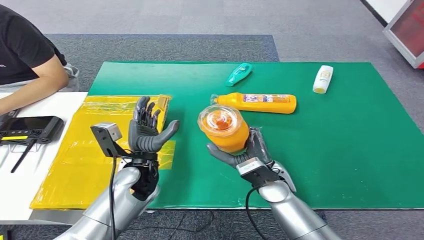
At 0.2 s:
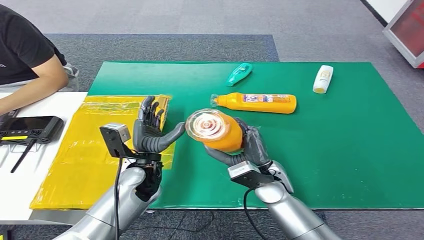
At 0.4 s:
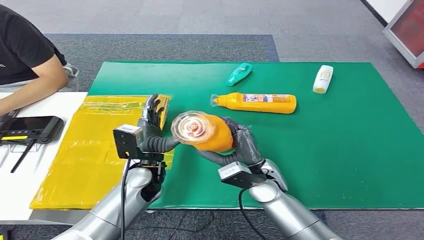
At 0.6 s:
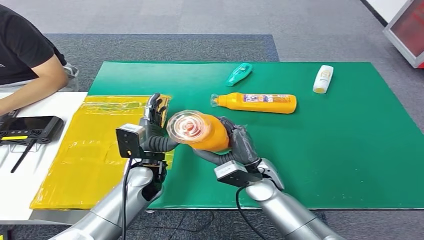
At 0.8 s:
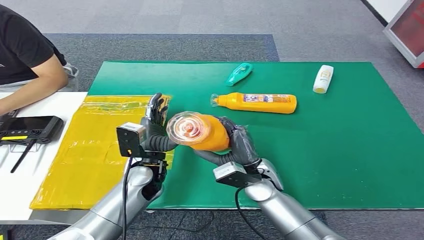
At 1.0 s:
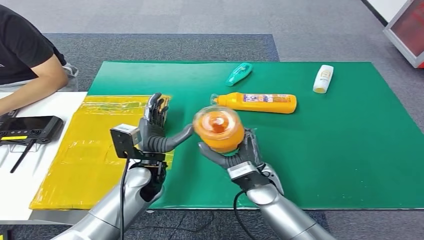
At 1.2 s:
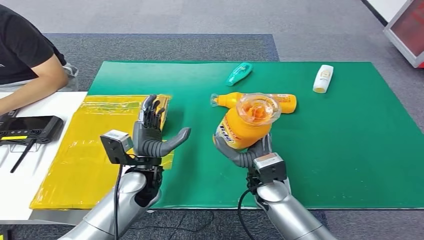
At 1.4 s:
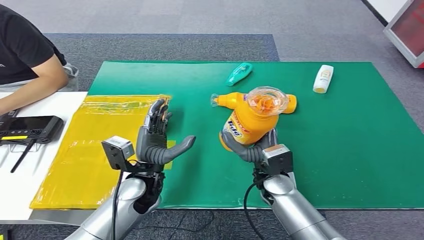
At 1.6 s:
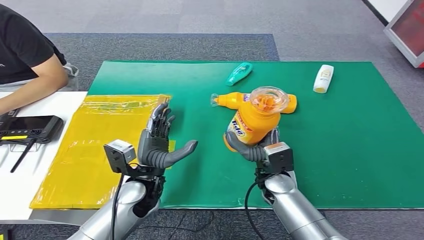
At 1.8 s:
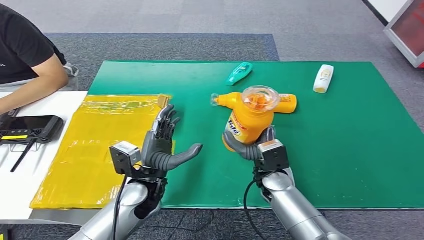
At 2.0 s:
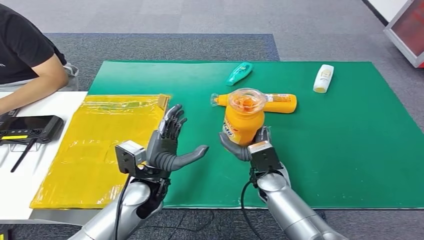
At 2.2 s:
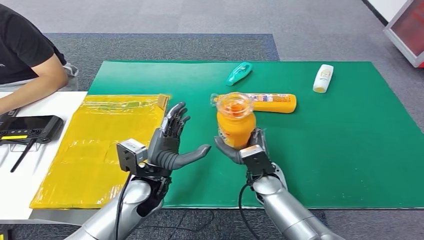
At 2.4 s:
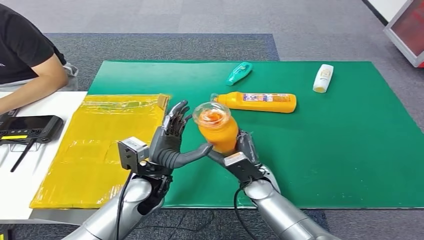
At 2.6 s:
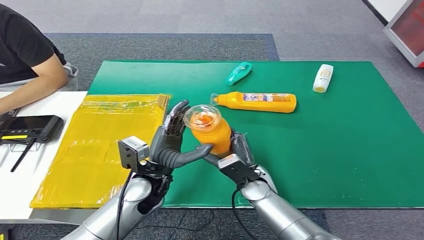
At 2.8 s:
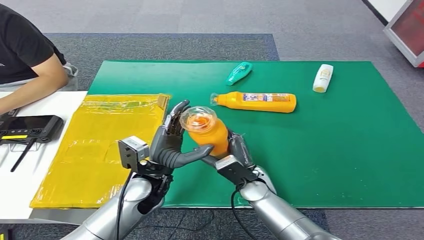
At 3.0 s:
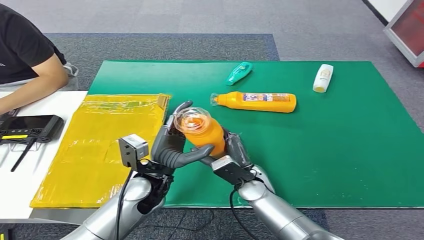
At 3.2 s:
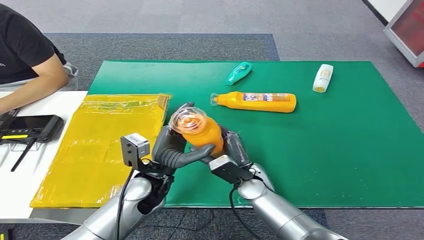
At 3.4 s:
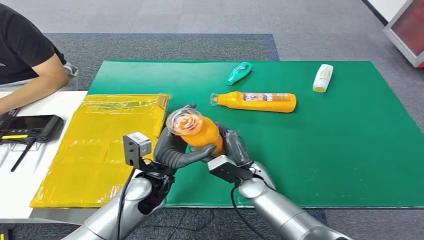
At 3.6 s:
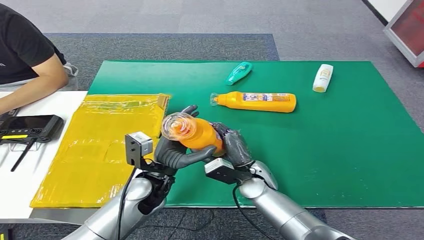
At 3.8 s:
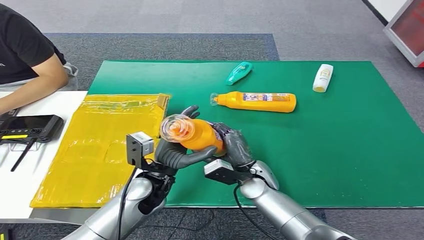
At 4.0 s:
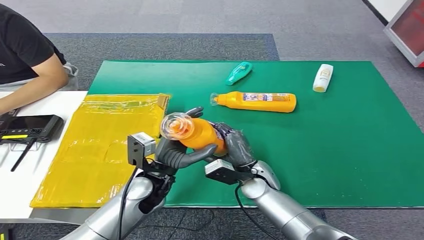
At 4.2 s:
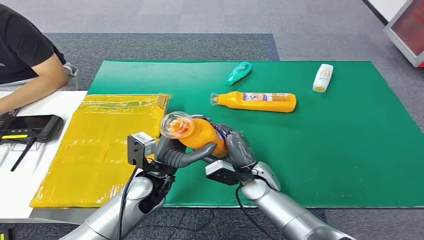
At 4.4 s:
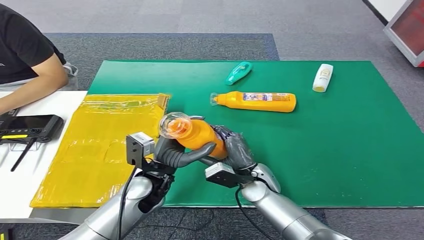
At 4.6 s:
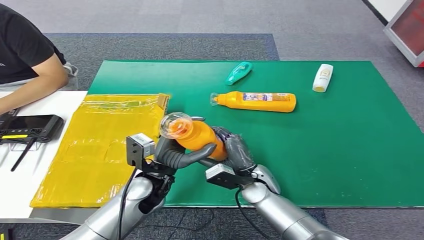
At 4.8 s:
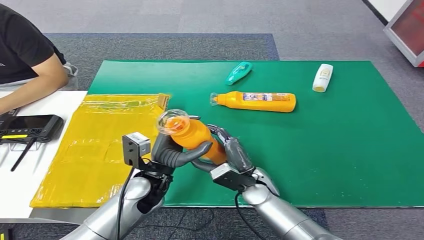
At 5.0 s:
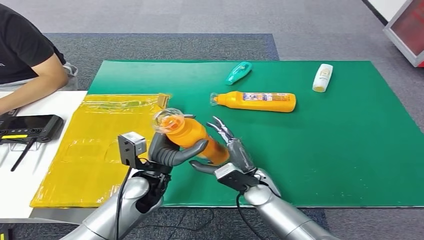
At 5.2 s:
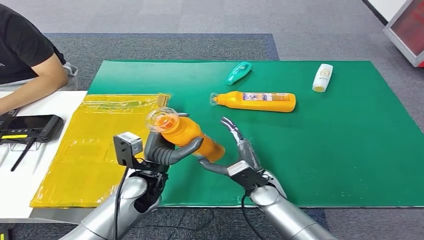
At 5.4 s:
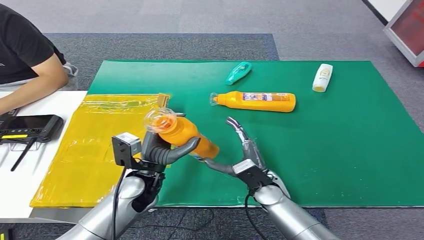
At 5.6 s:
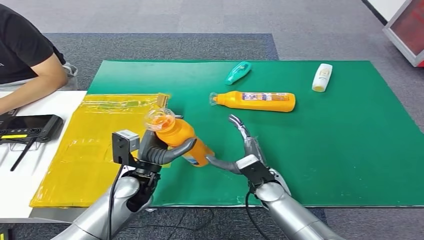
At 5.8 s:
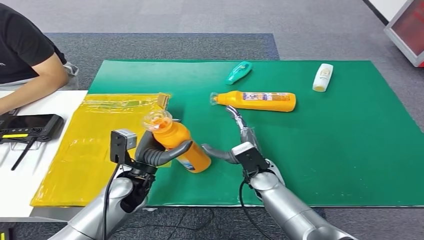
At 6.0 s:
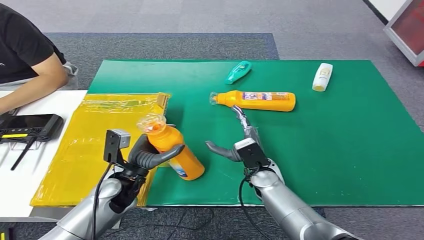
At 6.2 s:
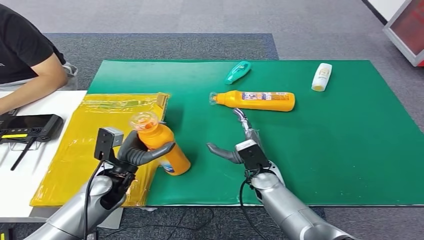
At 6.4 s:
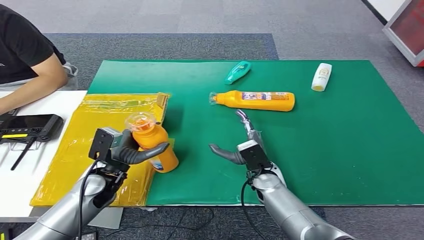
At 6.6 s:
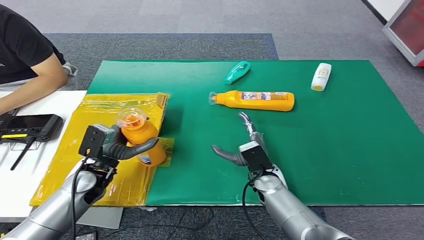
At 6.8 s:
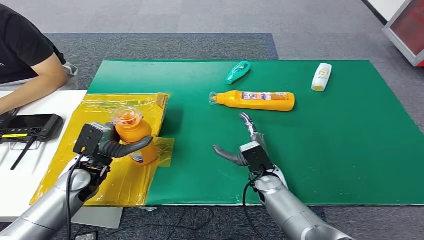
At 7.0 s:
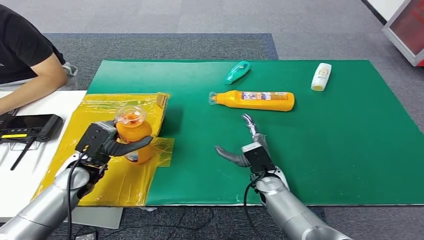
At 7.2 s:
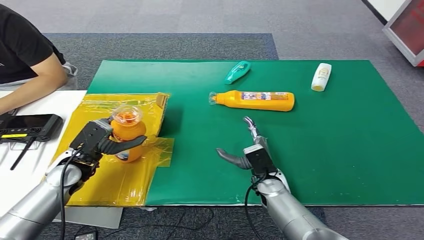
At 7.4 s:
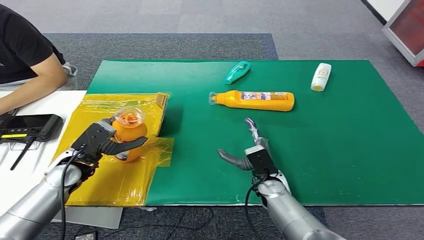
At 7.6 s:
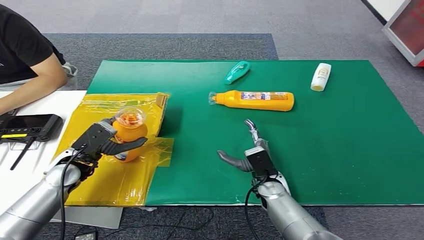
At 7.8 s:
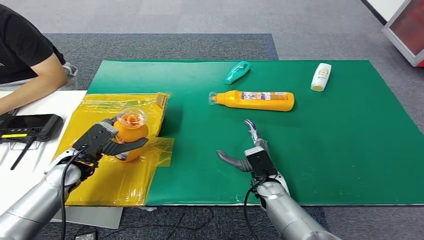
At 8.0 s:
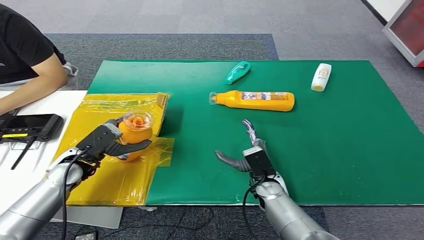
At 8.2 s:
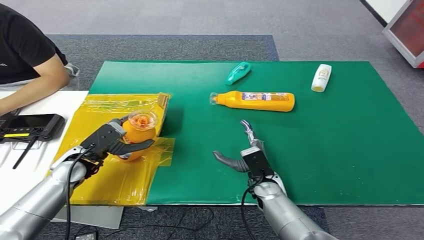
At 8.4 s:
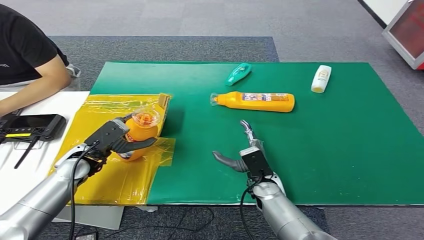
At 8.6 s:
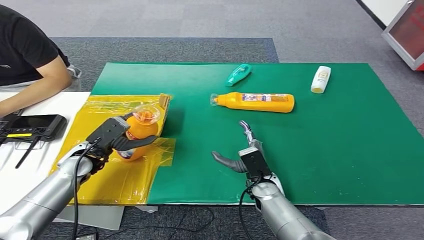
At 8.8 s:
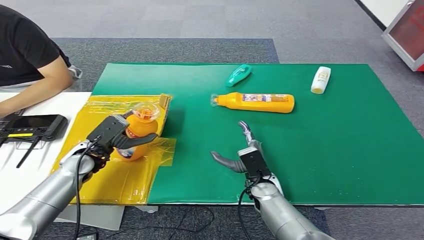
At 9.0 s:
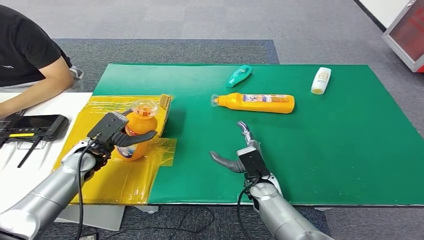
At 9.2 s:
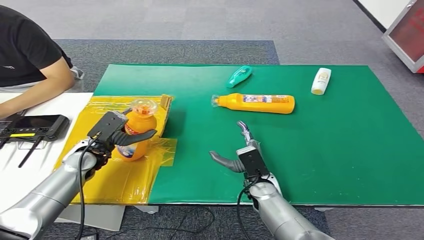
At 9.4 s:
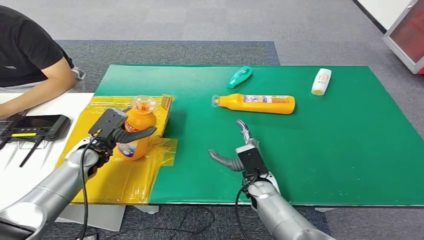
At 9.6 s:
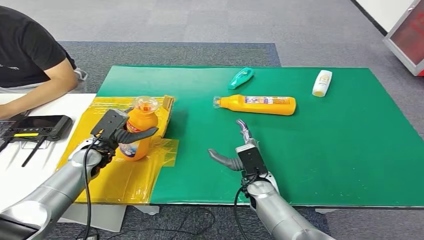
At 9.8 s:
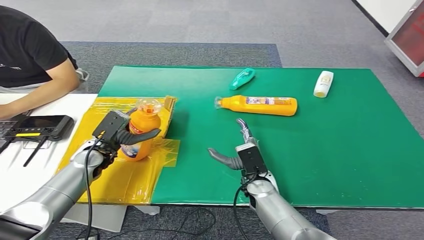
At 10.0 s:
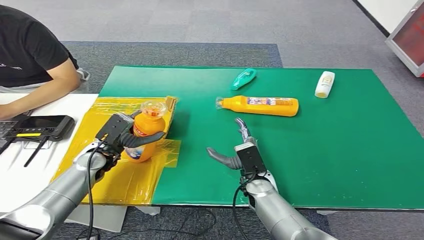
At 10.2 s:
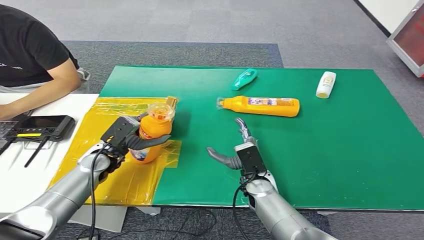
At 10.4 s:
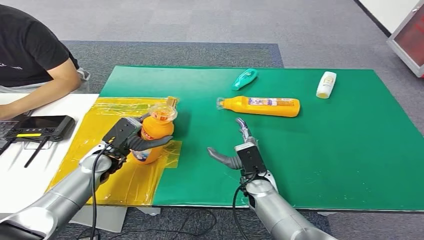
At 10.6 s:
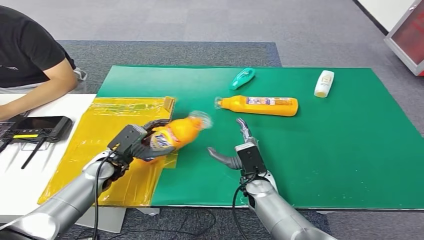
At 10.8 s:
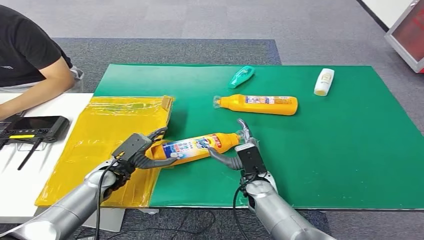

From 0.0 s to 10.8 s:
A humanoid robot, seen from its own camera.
Step, from 0.0 s to 10.8 s: Turn the bottle to the front side.
From 0.0 s to 1.6 s: There are only small adjustments of the hands.
From 1.6 s to 3.0 s: The hands stay close to where they were, moving slightly.
From 3.0 s to 4.6 s: The hands make only small movements.
From 4.6 s to 6.2 s: The left hand is displaced to the left by about 10 cm.
From 6.2 s to 7.8 s: The left hand heads to the left, covering roughly 10 cm.
From 9.2 s to 10.8 s: The left hand moves downward, about 5 cm.
